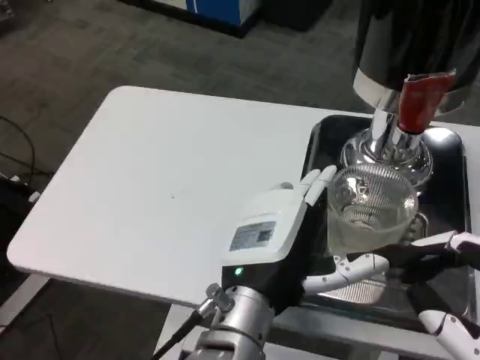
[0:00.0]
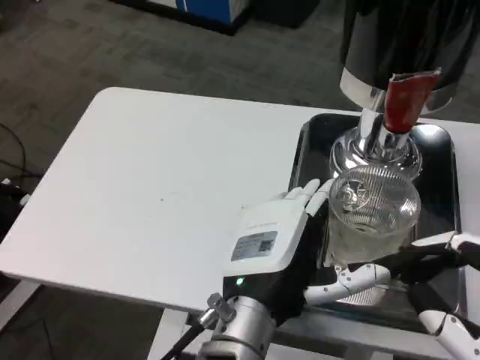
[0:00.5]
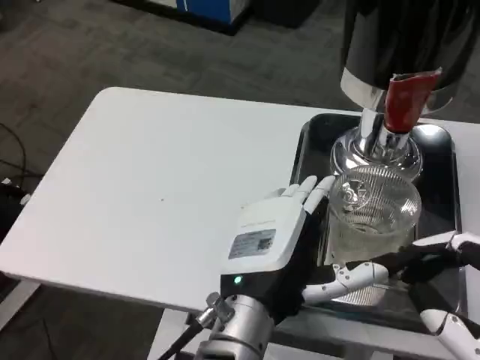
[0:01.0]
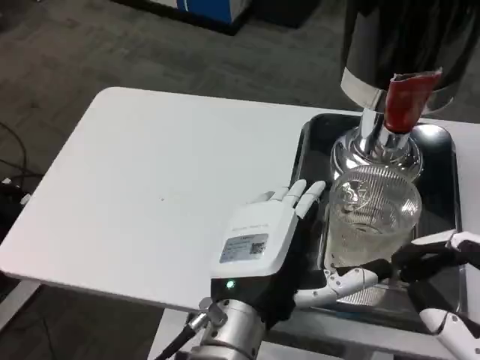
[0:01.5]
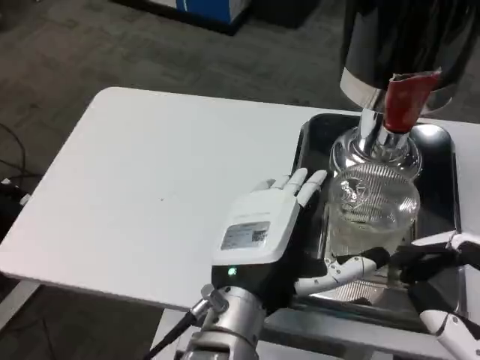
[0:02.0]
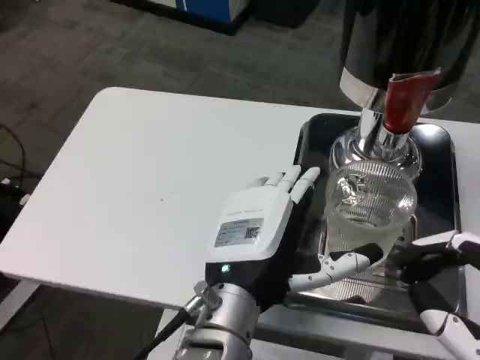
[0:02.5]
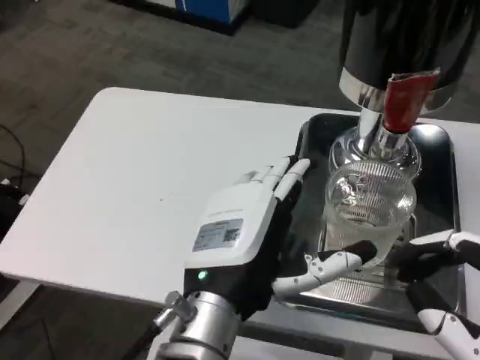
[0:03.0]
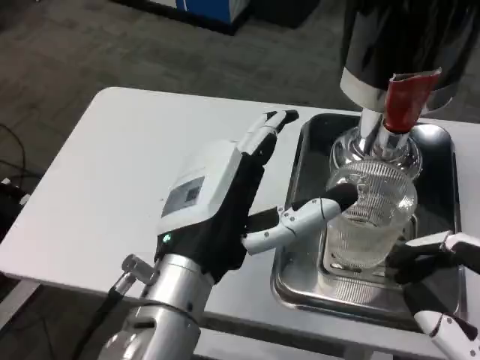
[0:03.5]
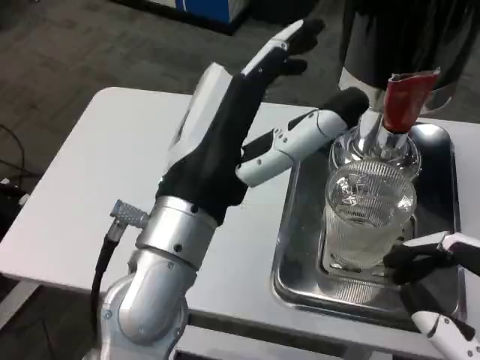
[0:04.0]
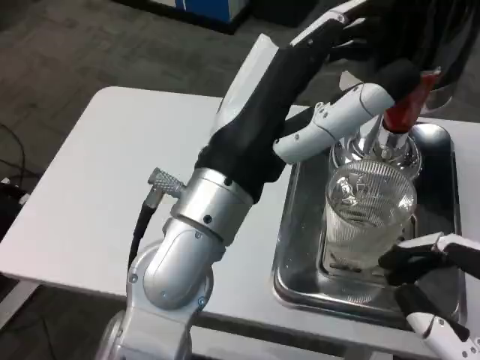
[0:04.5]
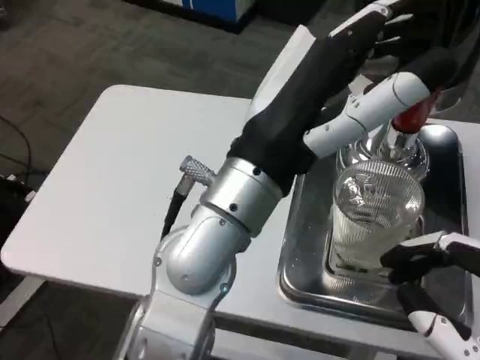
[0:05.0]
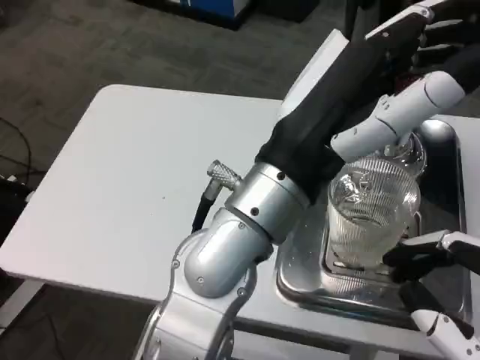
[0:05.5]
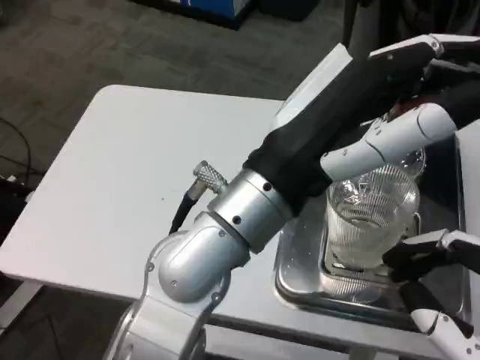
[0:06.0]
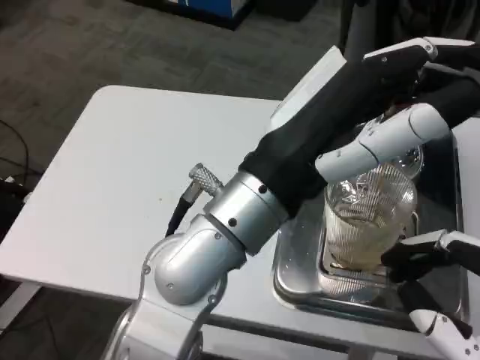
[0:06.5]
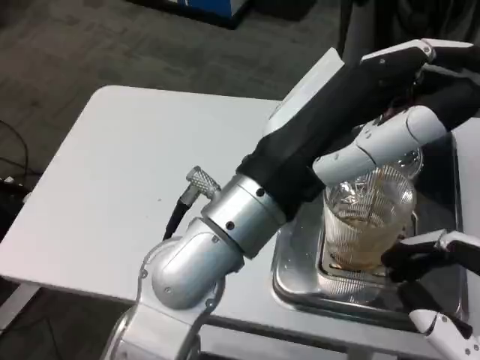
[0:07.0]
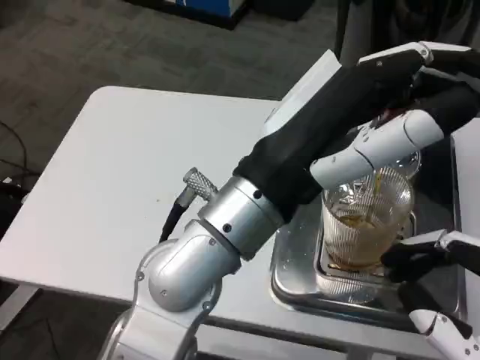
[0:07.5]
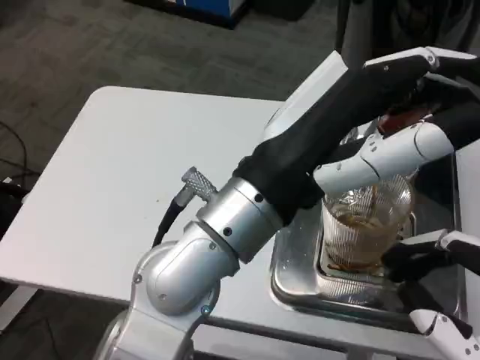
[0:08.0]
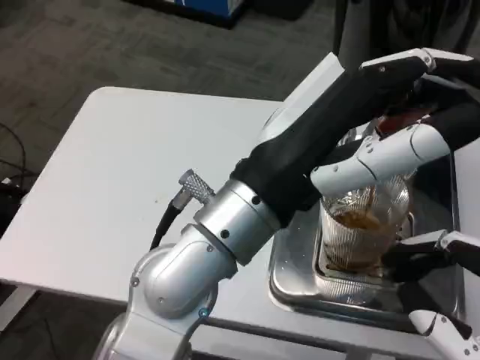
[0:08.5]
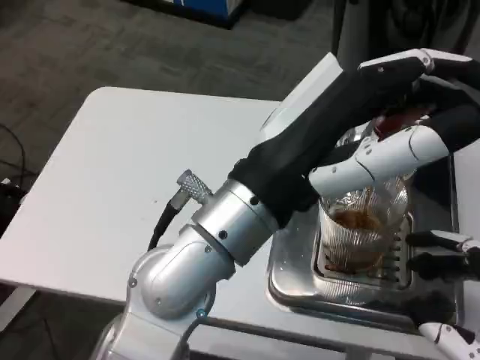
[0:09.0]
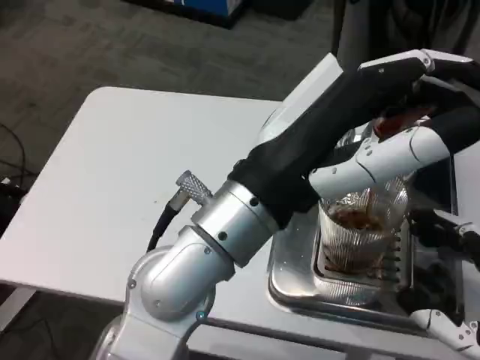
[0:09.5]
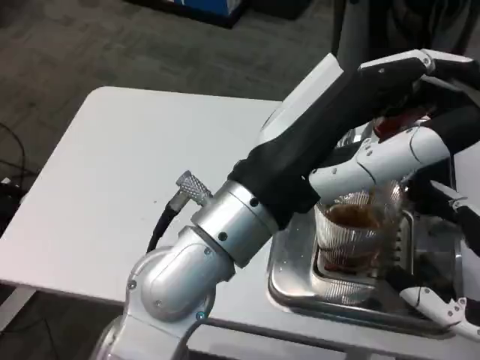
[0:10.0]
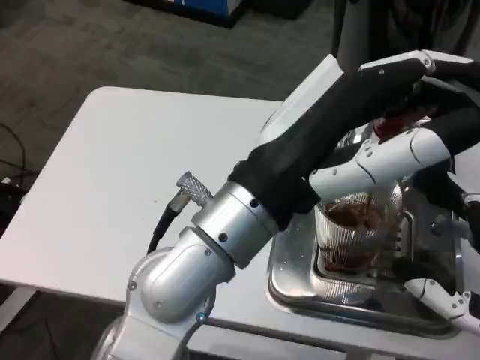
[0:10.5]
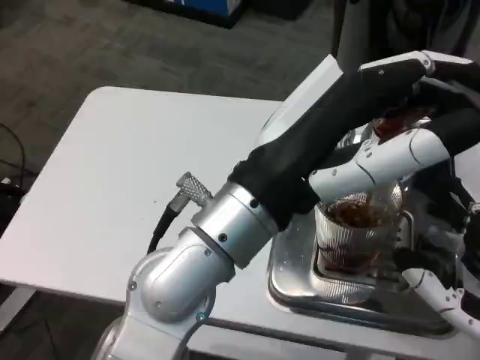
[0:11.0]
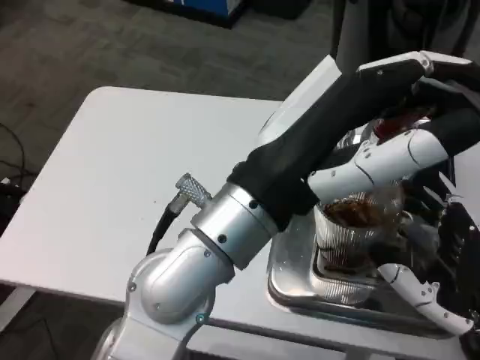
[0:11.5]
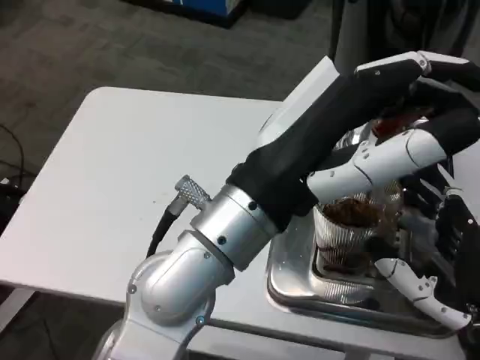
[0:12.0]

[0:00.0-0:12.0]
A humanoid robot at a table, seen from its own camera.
Task of the whole recording: Grasp the cup under the faucet to collect the drink, then remove the cup.
0:02.0 to 0:04.0: The left hand moves upward, approximately 10 cm.
0:08.0 to 0:10.0: The right hand moves forward, roughly 5 cm.
0:10.0 to 0:12.0: The right hand moves roughly 5 cm.

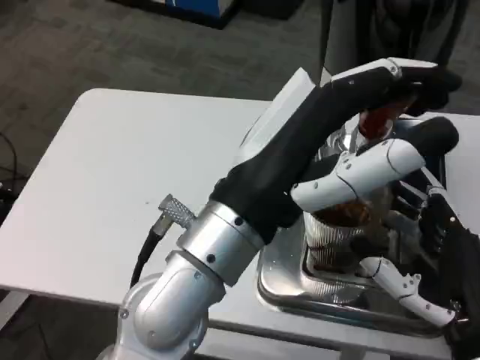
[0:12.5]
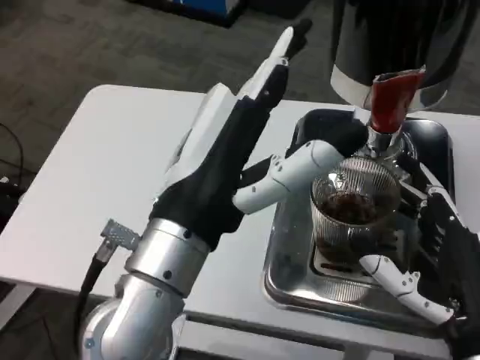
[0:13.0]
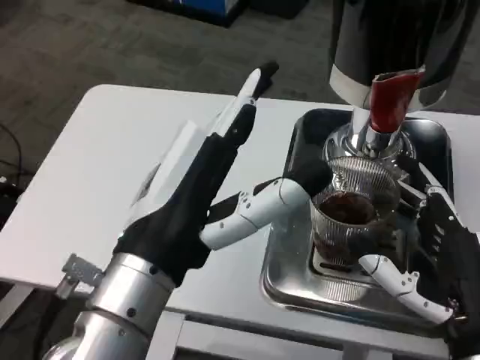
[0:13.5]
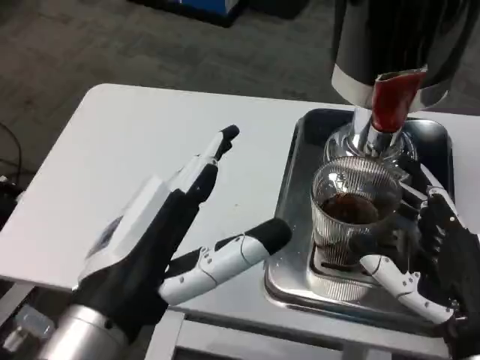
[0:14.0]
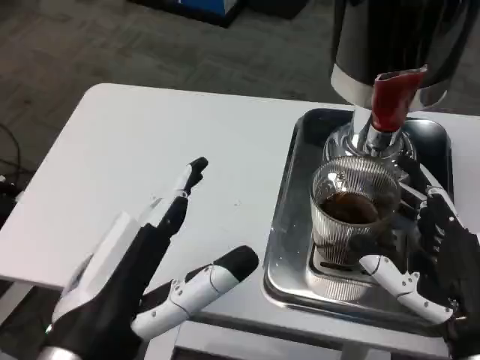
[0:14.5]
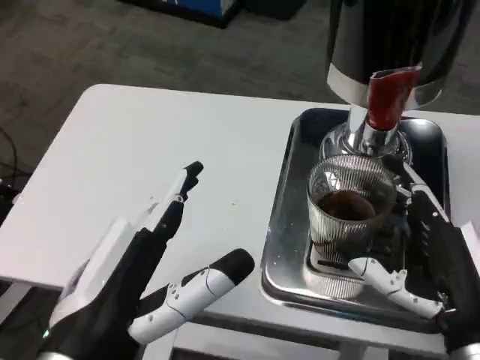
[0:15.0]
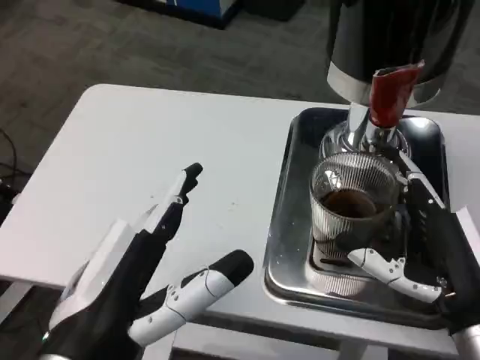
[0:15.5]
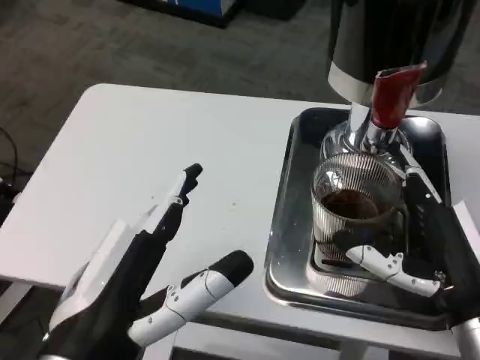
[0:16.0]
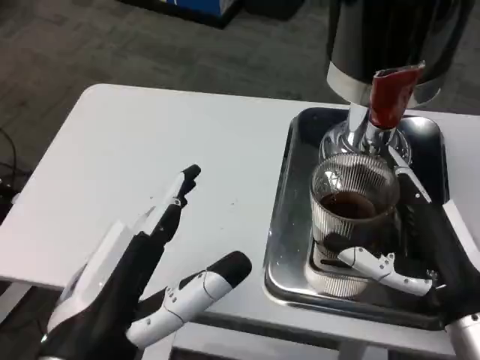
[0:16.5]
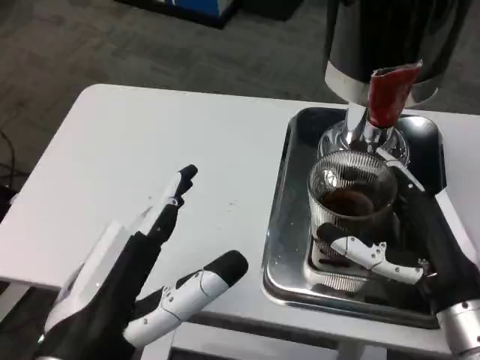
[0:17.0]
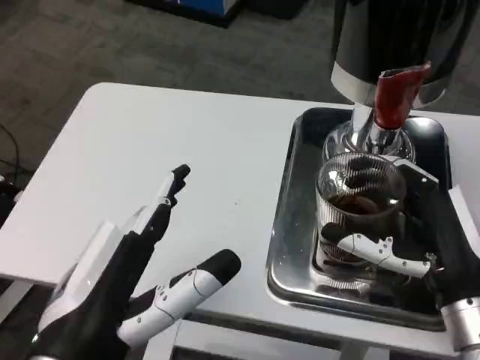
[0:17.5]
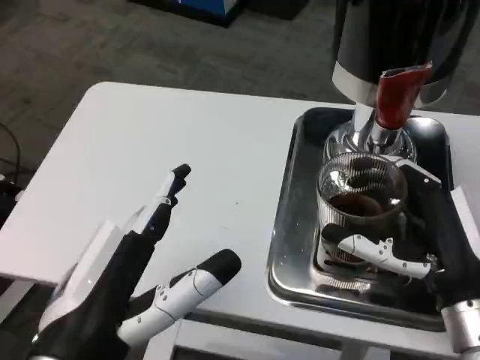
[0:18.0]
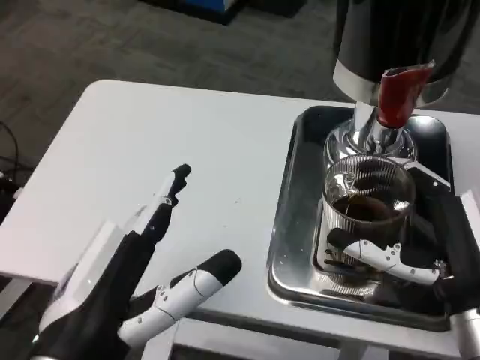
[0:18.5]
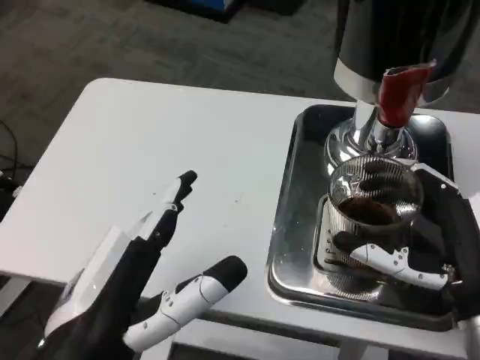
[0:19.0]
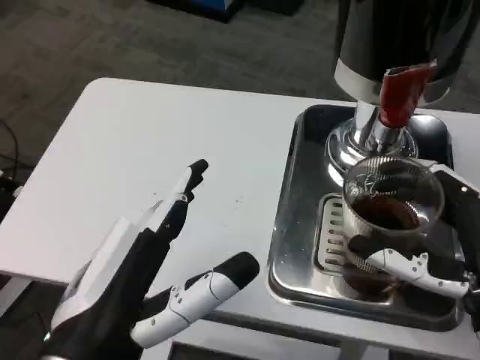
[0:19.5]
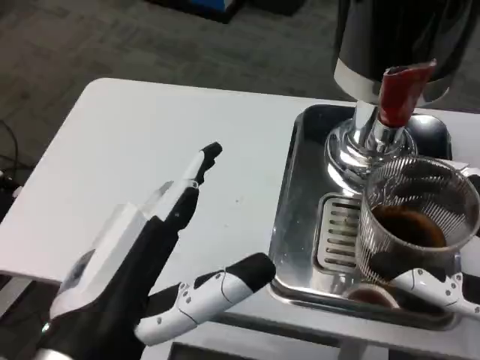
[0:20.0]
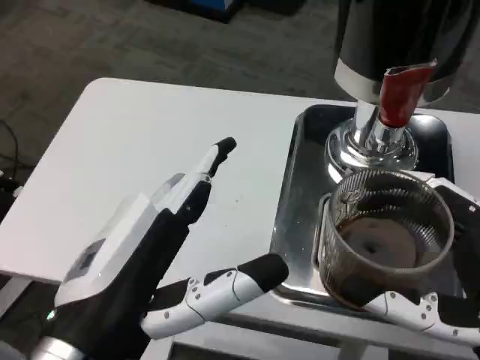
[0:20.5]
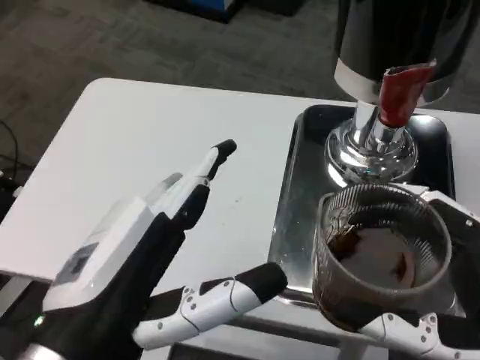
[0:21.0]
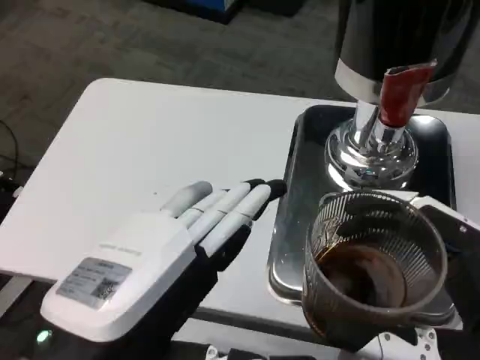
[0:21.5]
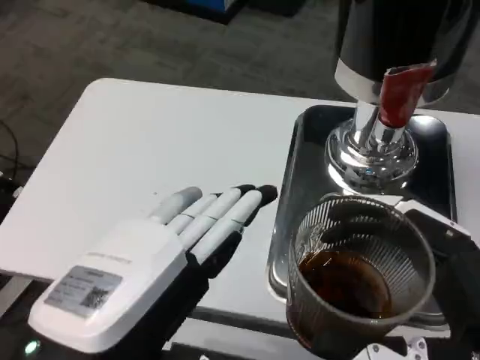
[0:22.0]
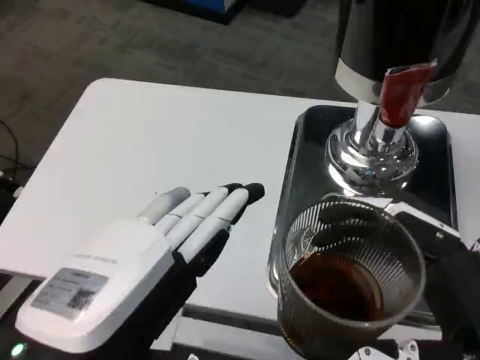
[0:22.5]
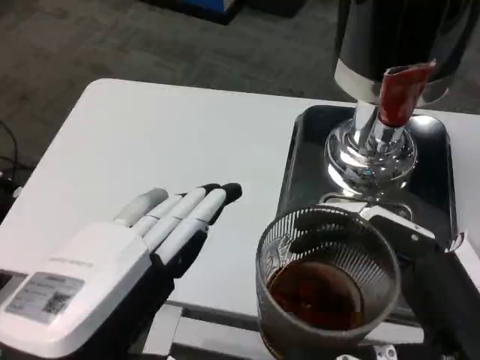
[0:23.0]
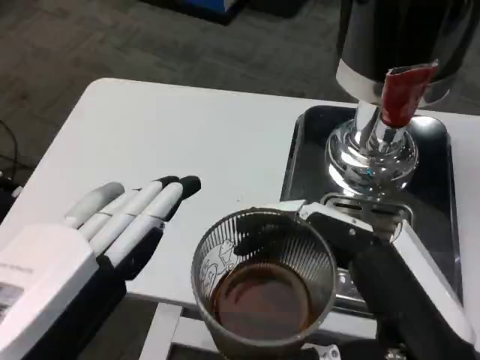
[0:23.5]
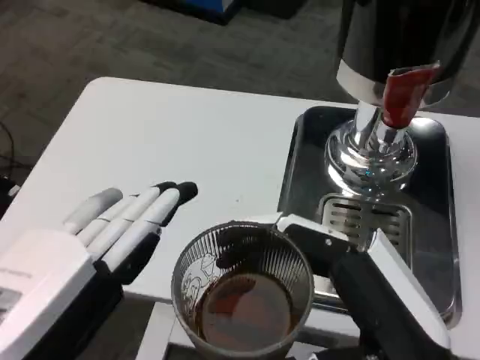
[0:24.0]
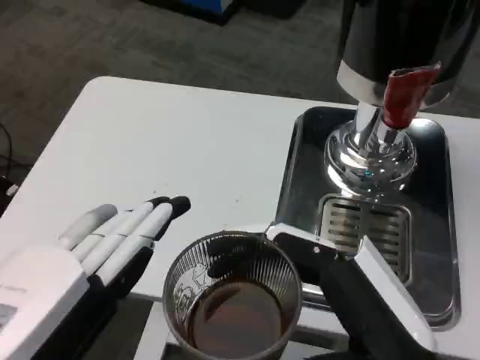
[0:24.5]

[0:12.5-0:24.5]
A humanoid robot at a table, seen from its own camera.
Task of the whole recording: Grasp the cup under the faucet to collect the drink, then remove the cup.
0:12.5 to 0:14.5: The left hand moves to the left, backward and downward, about 15 cm.
0:14.5 to 0:16.5: The hands stay close to where they were, moving slightly.
0:18.5 to 0:20.5: The right hand is displaced backward by about 10 cm.

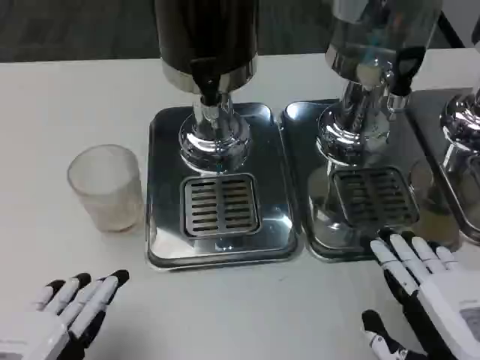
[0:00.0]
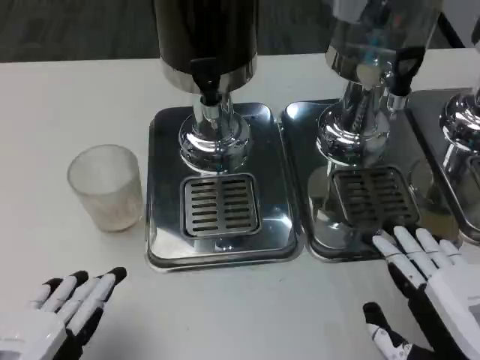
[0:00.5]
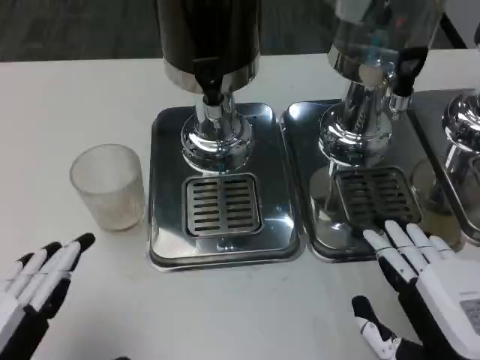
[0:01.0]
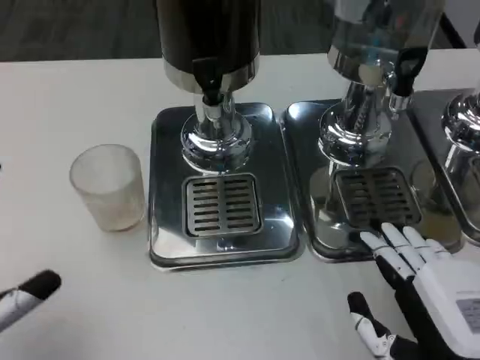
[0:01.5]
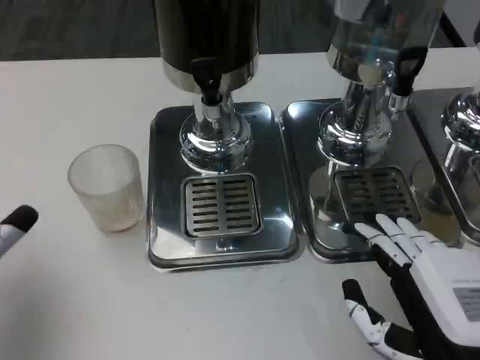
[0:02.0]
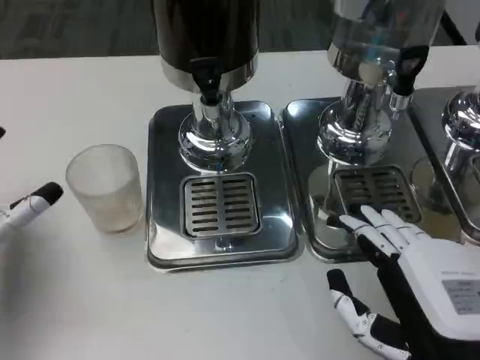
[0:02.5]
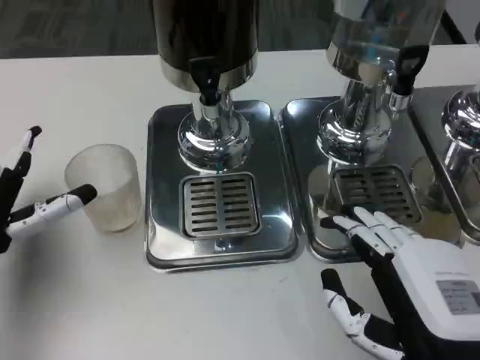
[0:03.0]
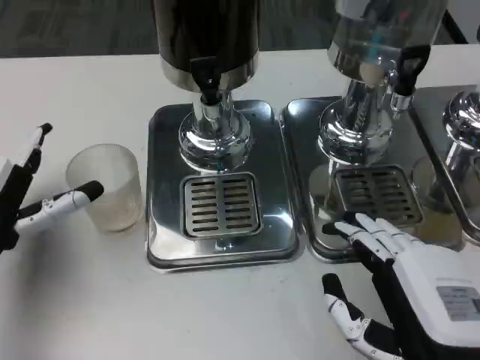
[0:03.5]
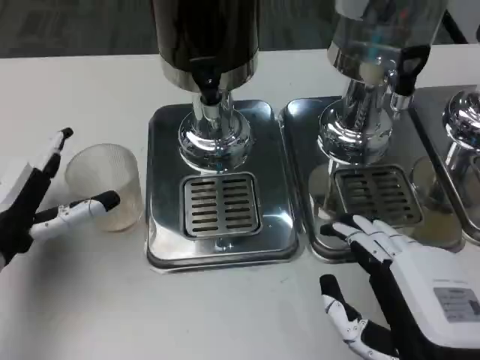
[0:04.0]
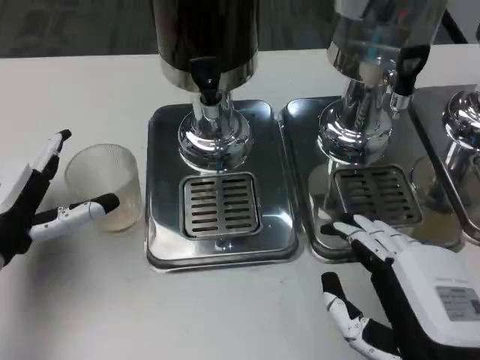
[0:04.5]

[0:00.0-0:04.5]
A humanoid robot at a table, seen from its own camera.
Task of the whole recording: Grasp the cup under the faucet to collect the drink, then remove the cup.
0:00.0 to 0:02.0: The left hand shifts roughly 10 cm forward and to the left.
0:02.0 to 0:04.5: The left hand goes roughly 10 cm forward.
